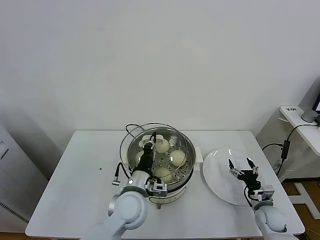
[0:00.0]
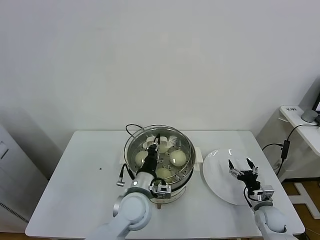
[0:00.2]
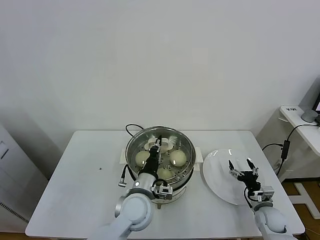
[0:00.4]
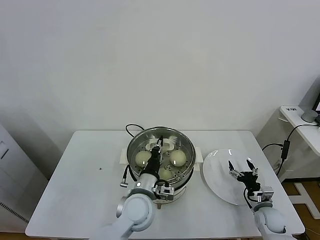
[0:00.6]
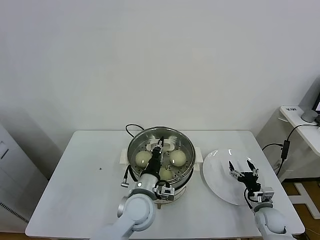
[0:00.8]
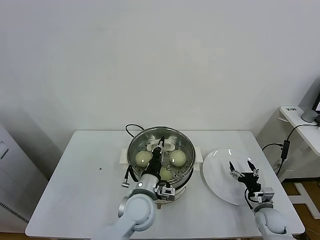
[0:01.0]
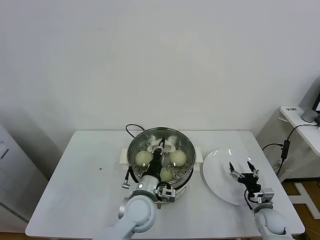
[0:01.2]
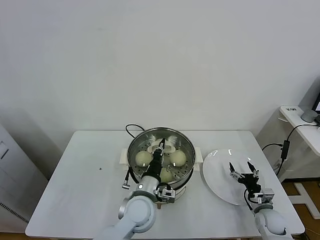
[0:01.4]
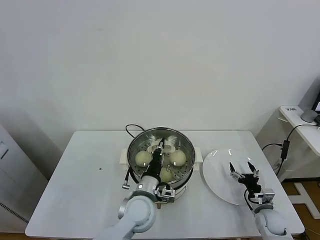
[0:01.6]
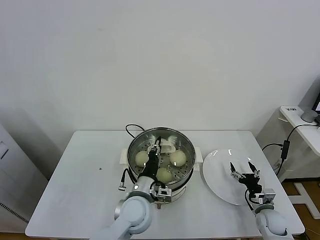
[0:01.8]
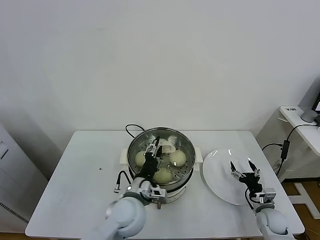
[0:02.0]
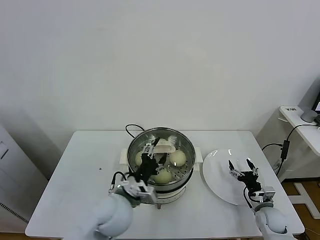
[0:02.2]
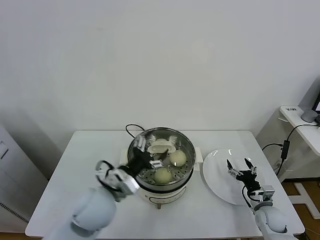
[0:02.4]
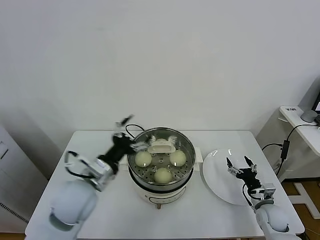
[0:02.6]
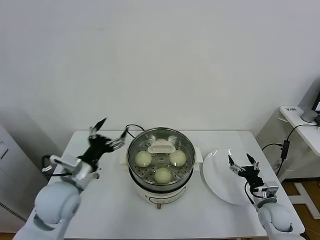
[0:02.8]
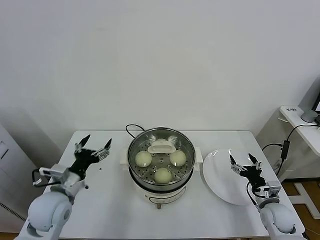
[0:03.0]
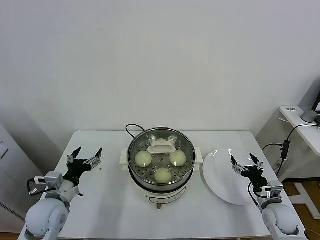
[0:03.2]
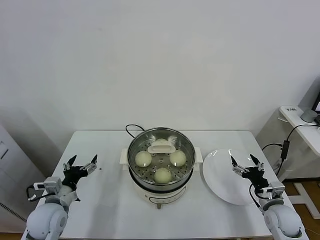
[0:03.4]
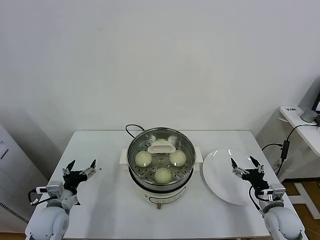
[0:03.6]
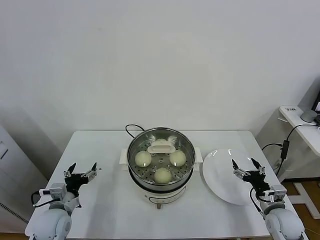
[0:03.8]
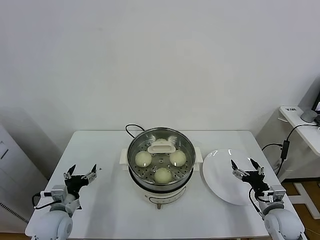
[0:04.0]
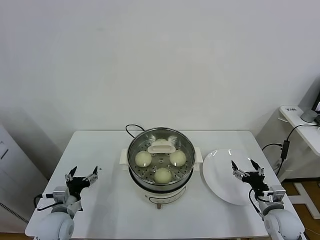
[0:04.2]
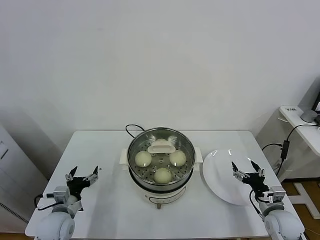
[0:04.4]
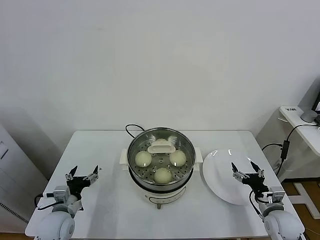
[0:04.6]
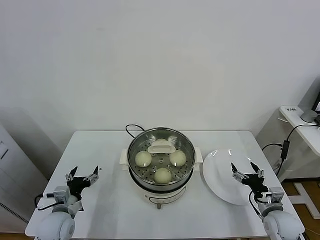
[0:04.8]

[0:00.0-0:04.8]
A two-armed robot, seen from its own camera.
Task of the whole recording: take steamed baozi put them in steamer.
Step, 0:00.0 to 0:02.2: Place the pot lid on the steamer with left gripper.
0:00.0 to 0:01.6: The grippers stay close to where they were, moving slightly.
0:01.6 to 0:03.2: The right gripper shifts some 10 cm upward, while the left gripper heads to the left, covering approximately 25 cm, and opens up.
0:03.2 to 0:04.8: The left gripper heads downward, covering about 10 cm.
